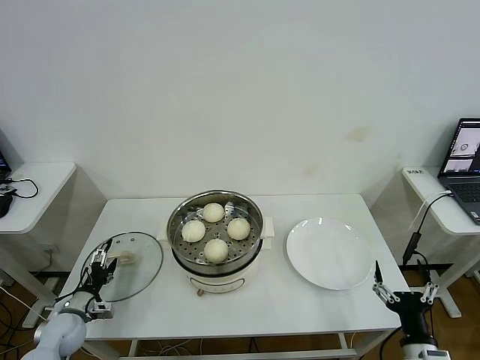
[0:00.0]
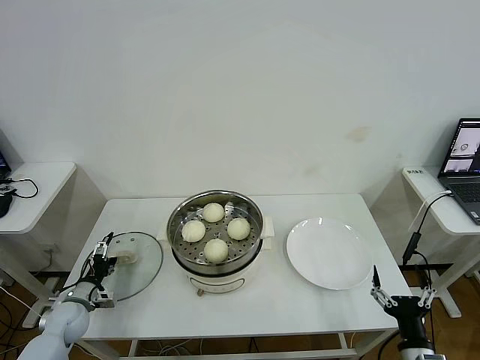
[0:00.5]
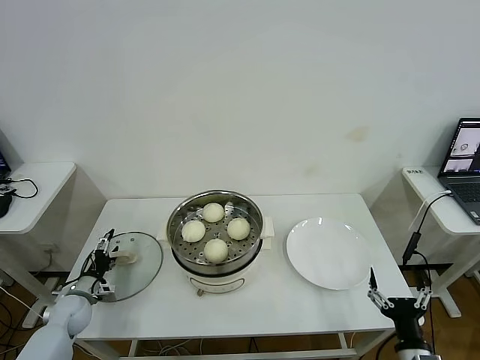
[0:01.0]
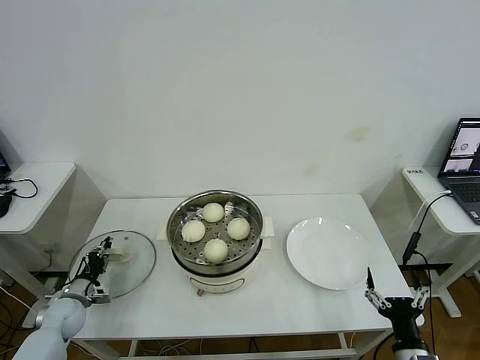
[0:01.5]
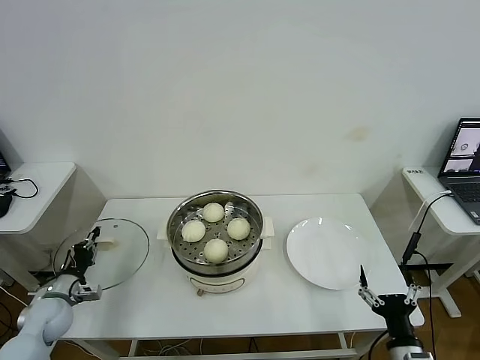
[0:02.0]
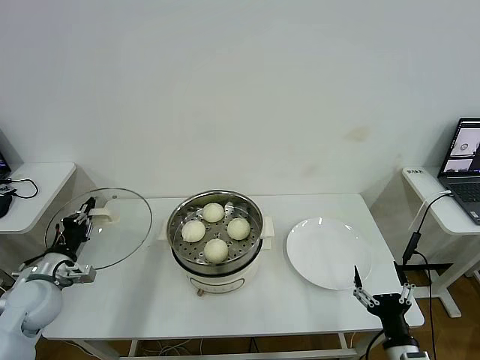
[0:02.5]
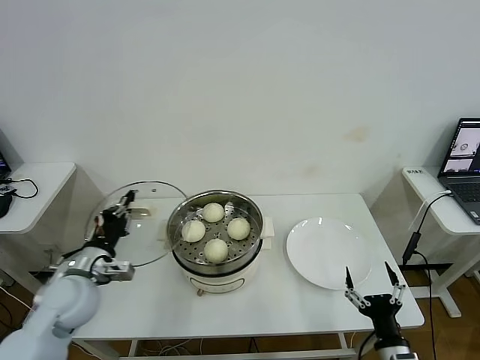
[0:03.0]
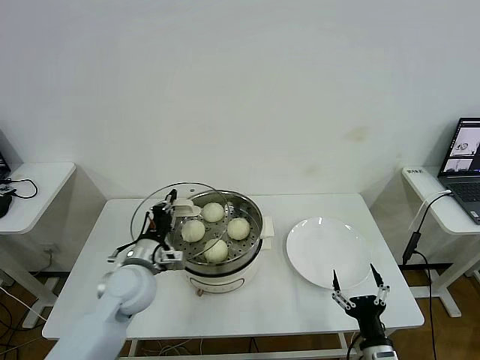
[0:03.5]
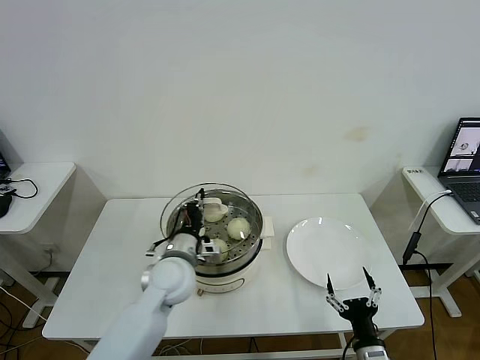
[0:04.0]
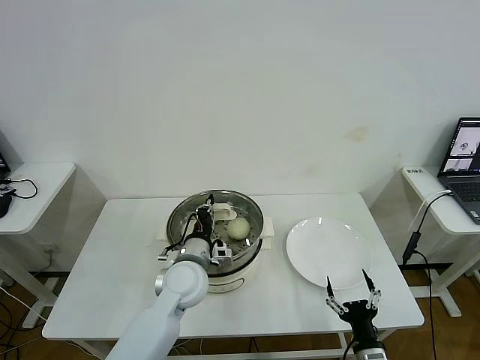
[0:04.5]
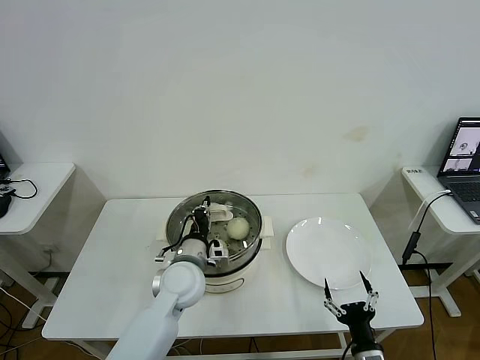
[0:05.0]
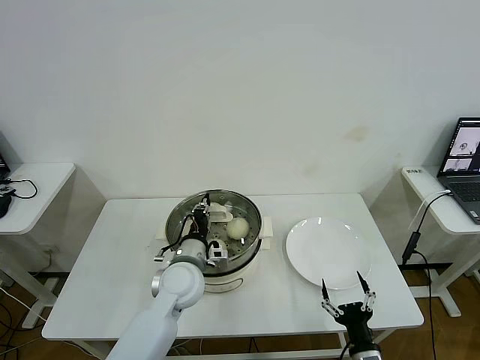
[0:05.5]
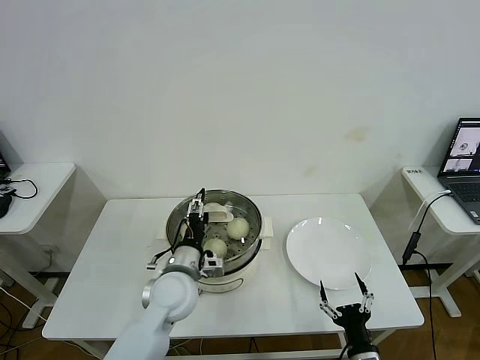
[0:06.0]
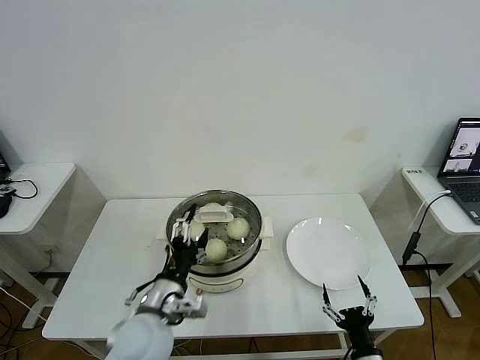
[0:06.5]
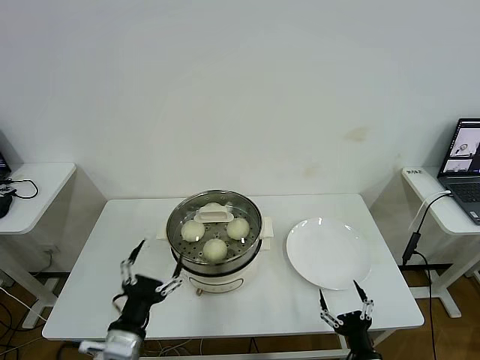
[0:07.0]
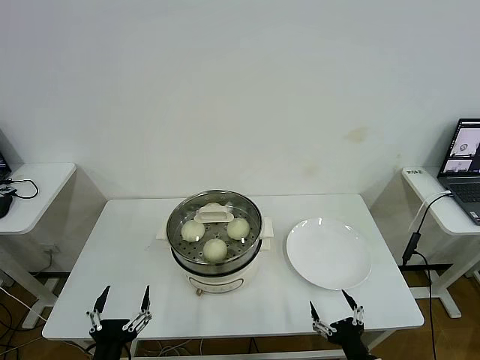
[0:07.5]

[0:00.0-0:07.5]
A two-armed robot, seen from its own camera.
Task of the whole recording: take steamed baozi put them in steamer then cover it.
Step, 0:02.0 to 0:06.0: Place the pot lid on the steamer with left gripper.
0:00.0 to 0:02.0: The left gripper changes place by roughly 5 cm, and closes up.
0:02.0 to 0:04.0: The left gripper travels to the right and upward by about 35 cm; the right gripper moves about 5 cm.
0:04.0 to 0:05.5: The grippers move only a little.
0:05.5 to 0:07.5: The left gripper travels backward and to the left by roughly 30 cm, and opens up.
